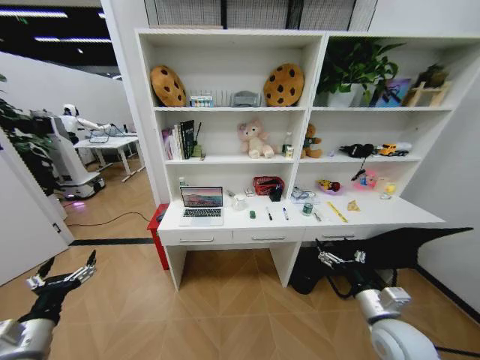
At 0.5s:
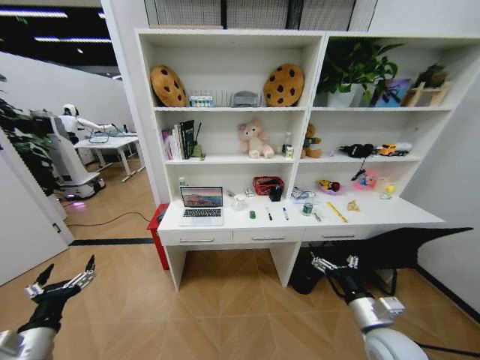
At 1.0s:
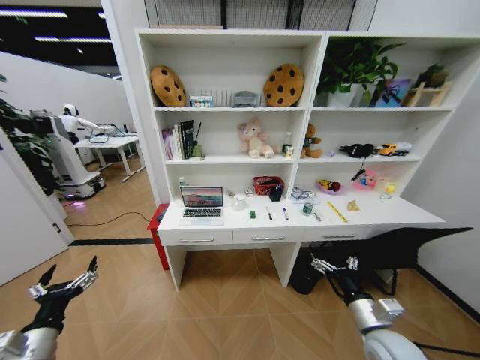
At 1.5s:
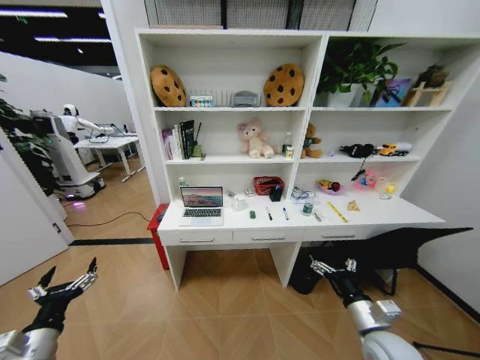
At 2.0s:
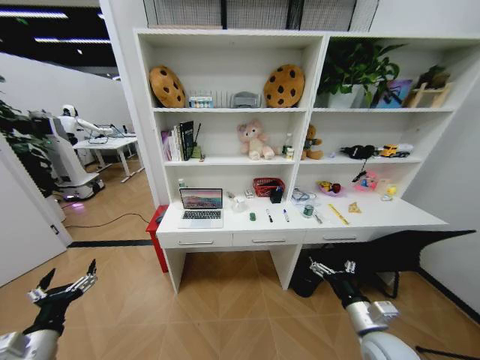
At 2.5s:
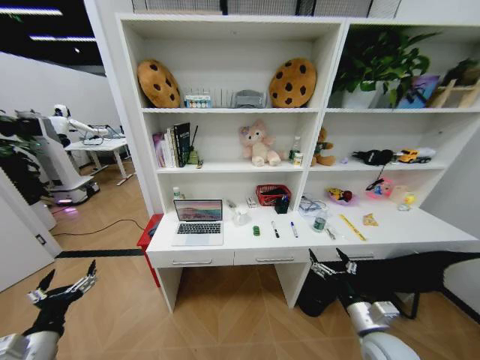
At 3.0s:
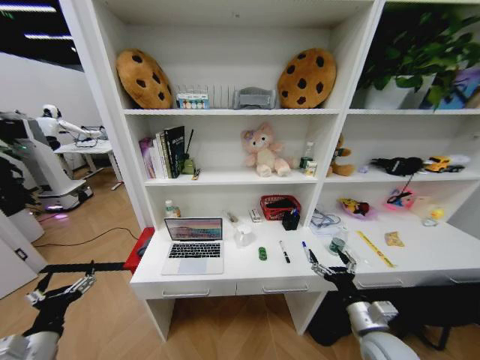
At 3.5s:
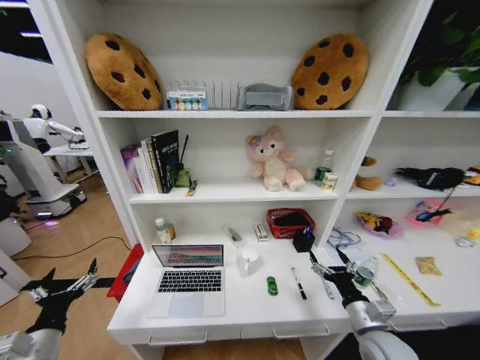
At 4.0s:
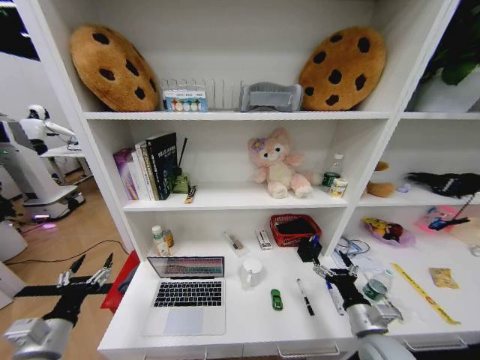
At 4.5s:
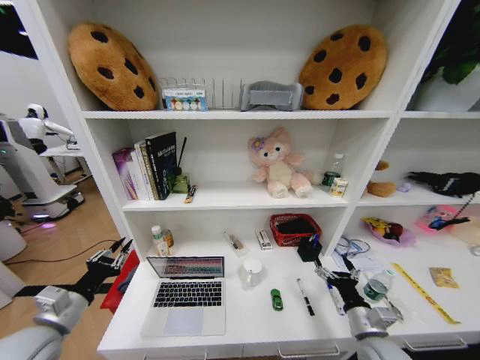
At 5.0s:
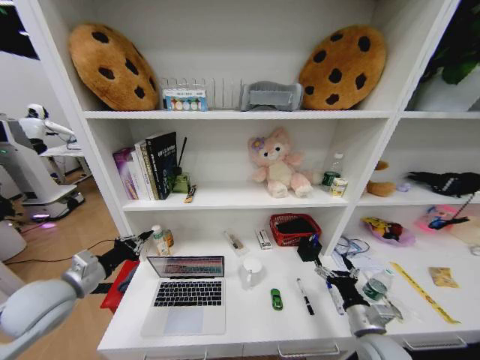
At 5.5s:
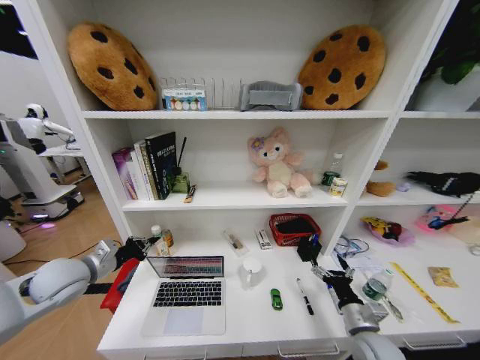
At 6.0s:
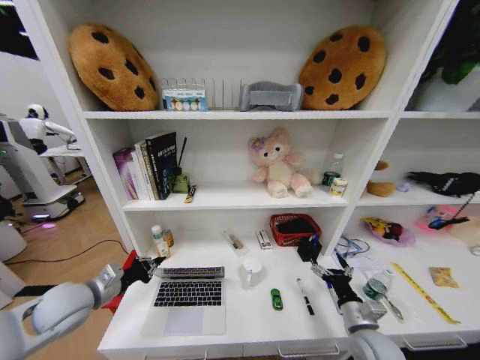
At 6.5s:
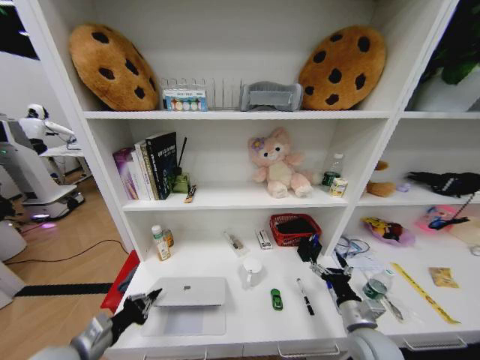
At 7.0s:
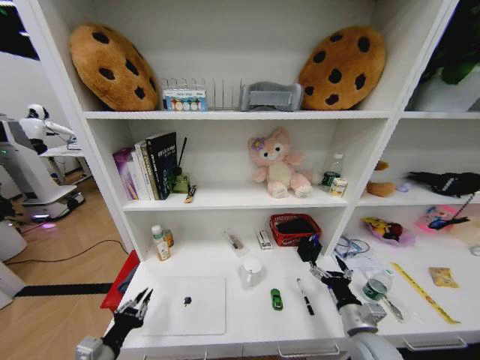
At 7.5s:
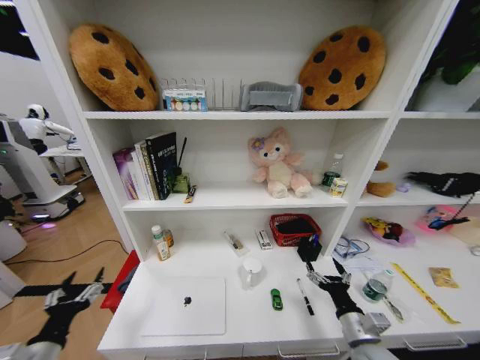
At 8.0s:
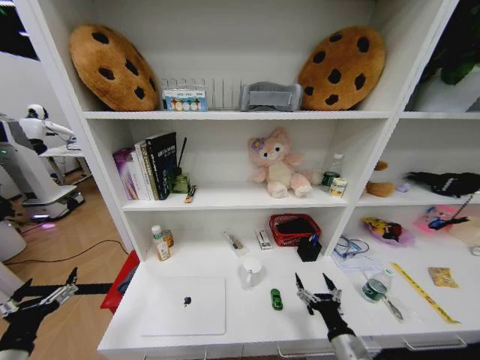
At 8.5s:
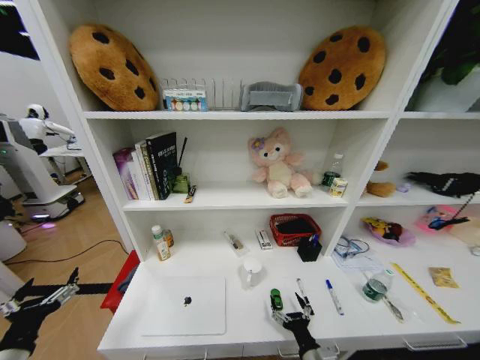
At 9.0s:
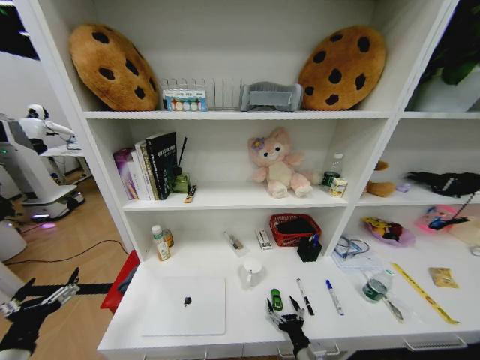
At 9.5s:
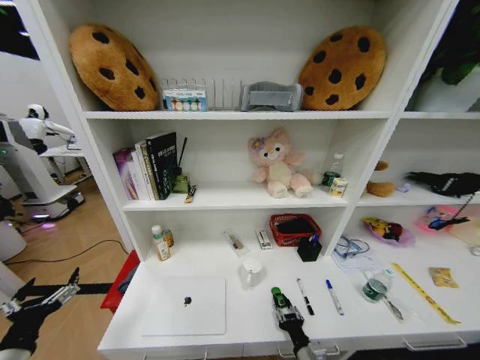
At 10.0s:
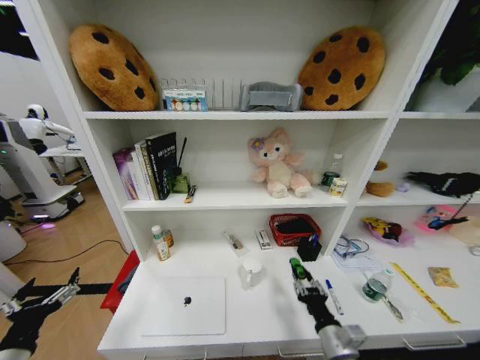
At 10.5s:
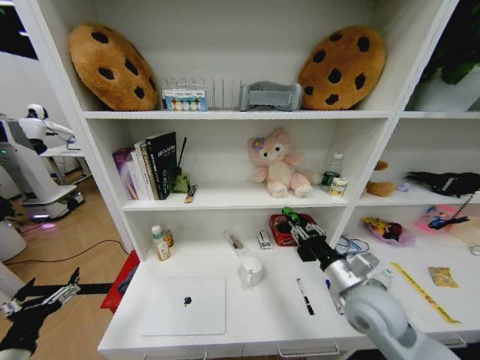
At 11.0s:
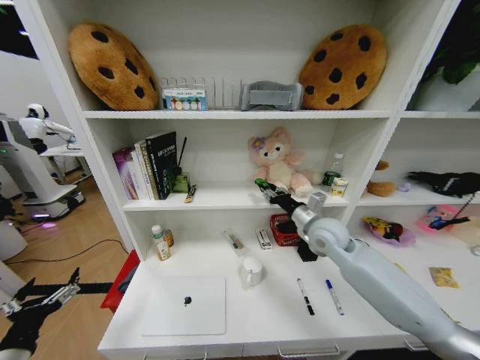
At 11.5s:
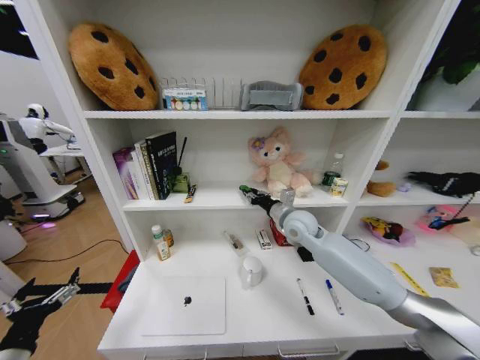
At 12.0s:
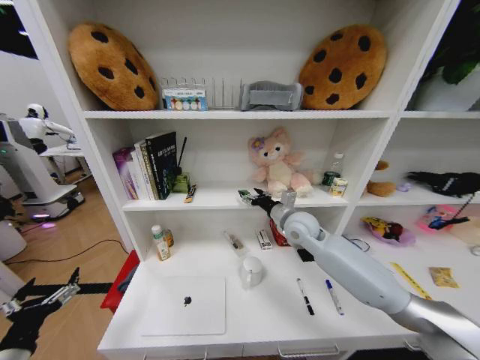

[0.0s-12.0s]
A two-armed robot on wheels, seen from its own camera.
Task of the whole recording: Organize the objects on the table.
4.0s to 6.0s: The left gripper heads forward, covering about 10 cm, and closes its fingers.
6.0s to 8.0s: The left gripper travels backward by about 15 cm, and opens up; the right gripper goes roughly 10 cm backward and to the left.
8.0s to 10.0s: The right gripper travels downward and back again, about 10 cm each way, and closes up.
10.0s to 12.0s: The right gripper moves forward and upward, roughly 35 cm, and opens.

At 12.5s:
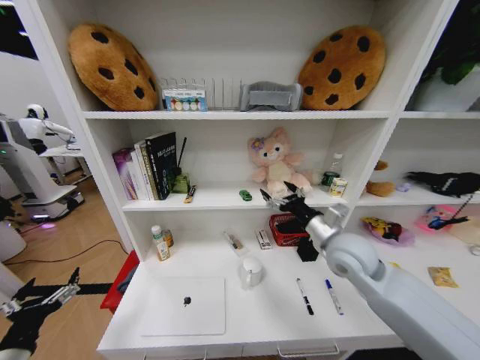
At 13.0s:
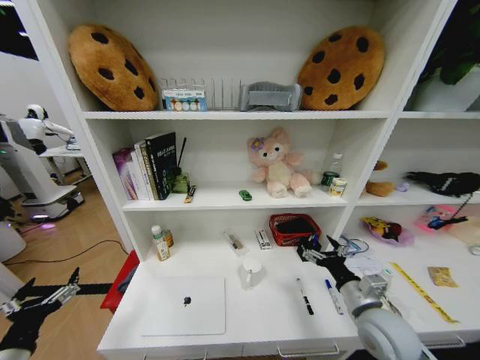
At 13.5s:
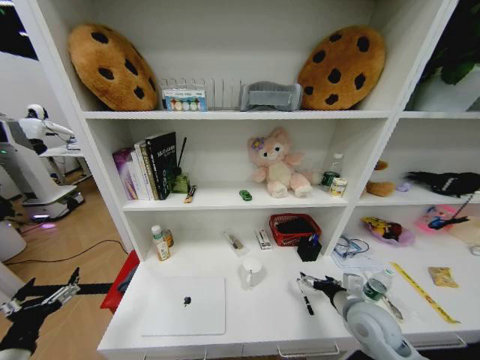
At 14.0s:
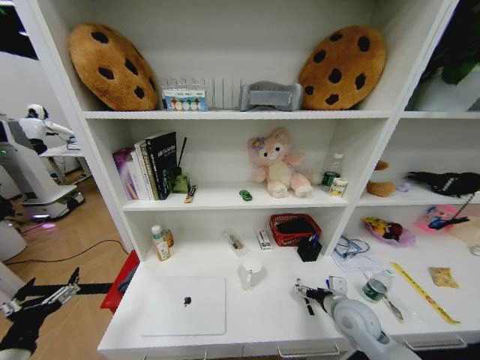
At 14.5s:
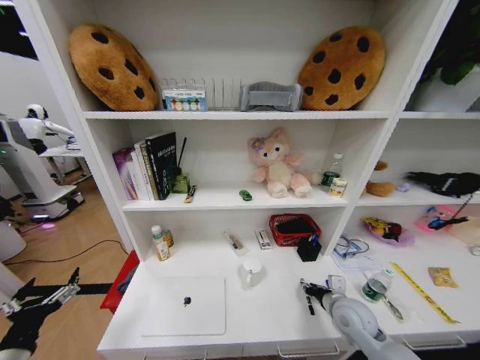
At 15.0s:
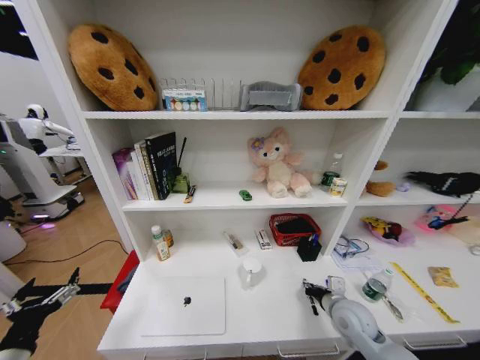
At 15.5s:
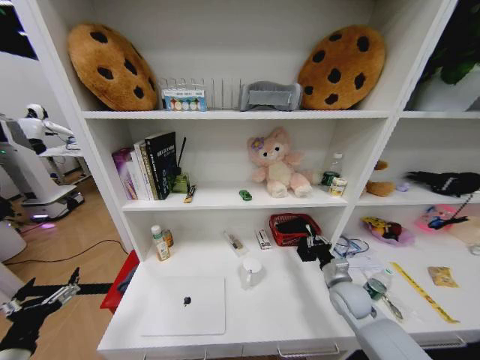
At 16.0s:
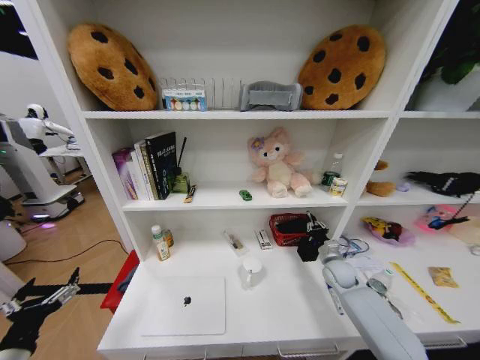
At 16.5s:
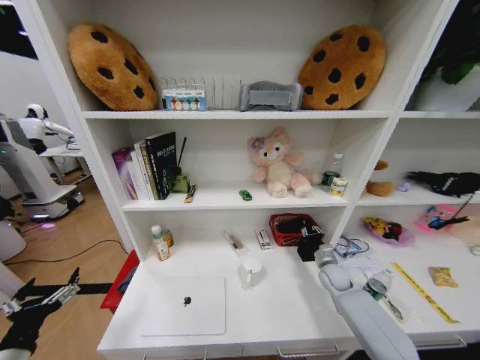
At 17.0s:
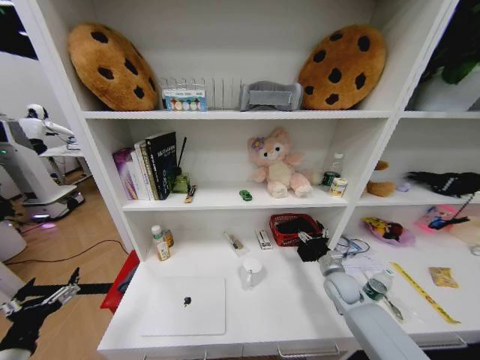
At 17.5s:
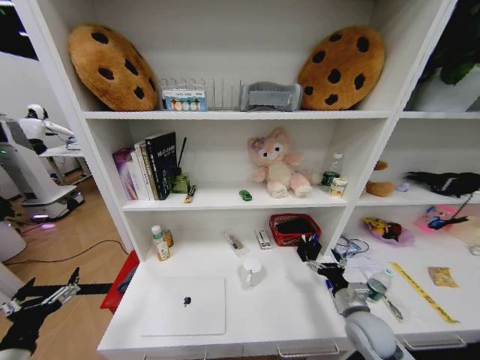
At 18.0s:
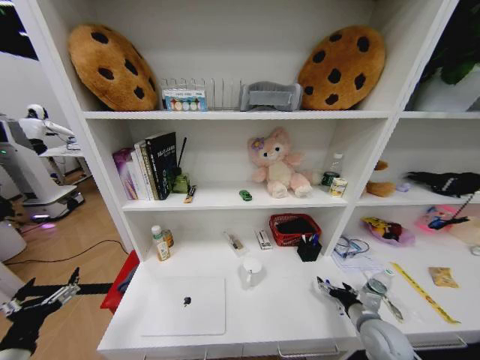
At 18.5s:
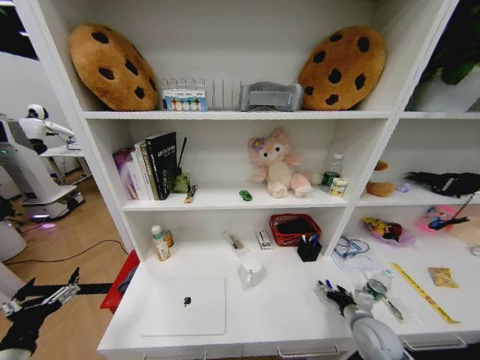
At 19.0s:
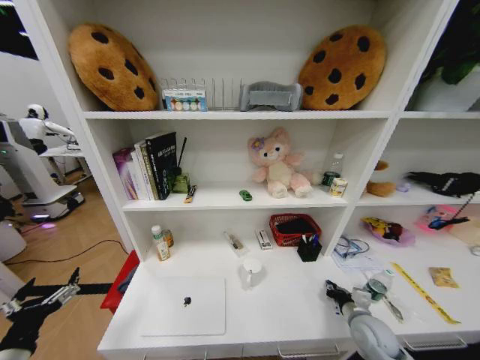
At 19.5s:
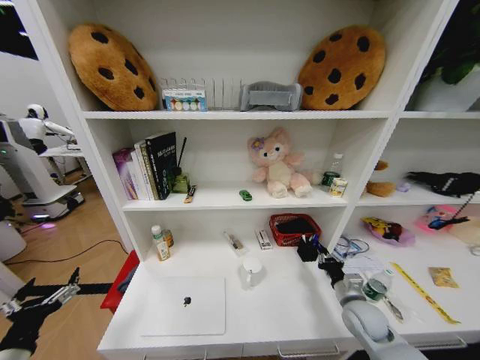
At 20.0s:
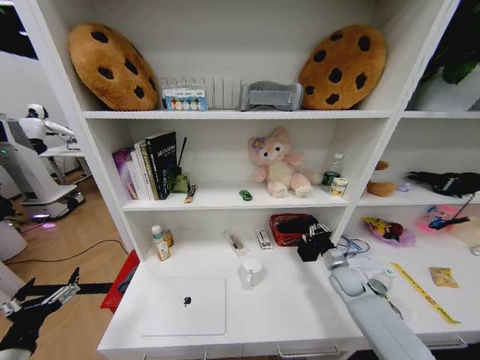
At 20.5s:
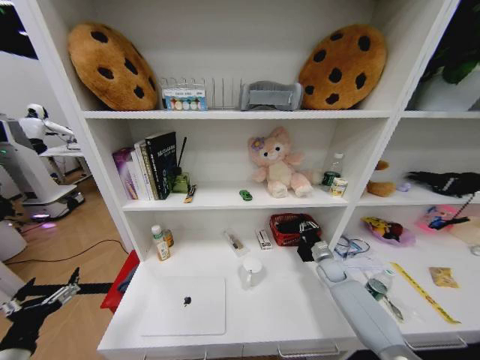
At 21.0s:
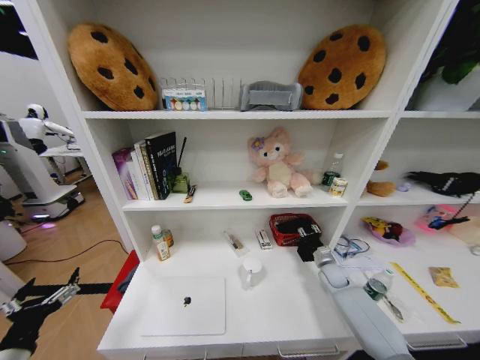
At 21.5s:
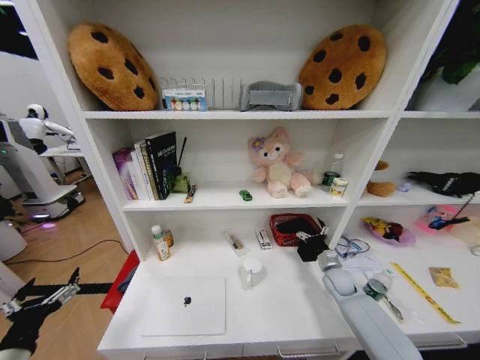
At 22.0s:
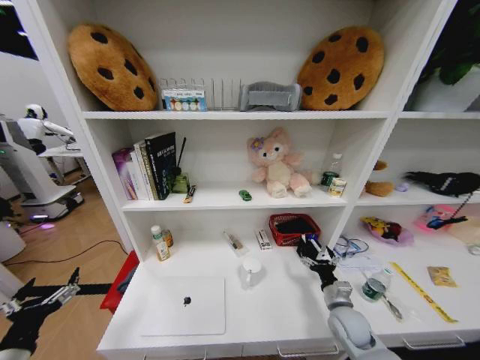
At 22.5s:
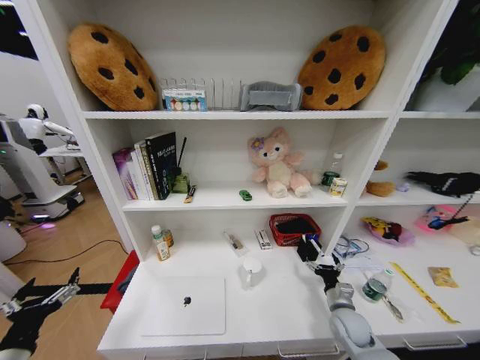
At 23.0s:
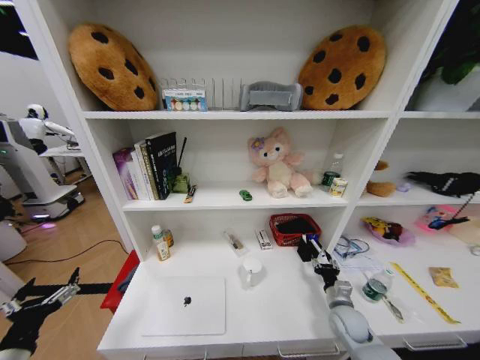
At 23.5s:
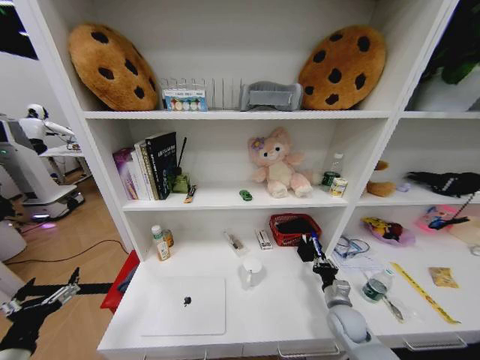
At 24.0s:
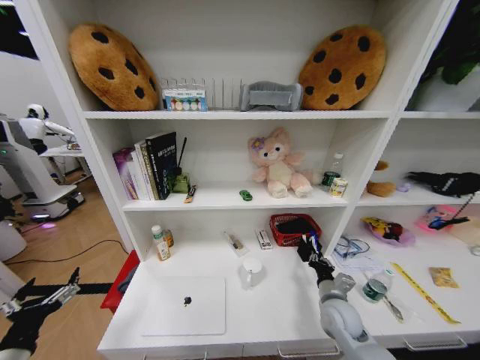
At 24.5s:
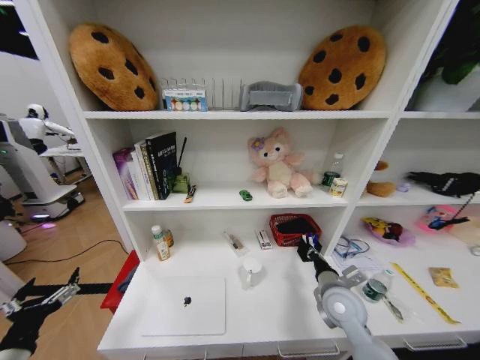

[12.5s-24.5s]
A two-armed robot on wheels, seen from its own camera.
Task of the whole recording: Organize the objects on the table.
12.5s to 14.5s: The right gripper shifts some 20 cm downward, and closes up.
14.5s to 16.5s: The right gripper shifts approximately 15 cm forward.
16.5s to 18.5s: The right gripper goes some 20 cm backward, and opens.
18.5s to 20.5s: The right gripper shifts some 20 cm forward, and closes up.
20.5s to 22.5s: The right gripper heads backward, covering some 15 cm, and opens up.
22.5s to 24.5s: The right gripper moves upward and to the left, some 15 cm, and closes its fingers.

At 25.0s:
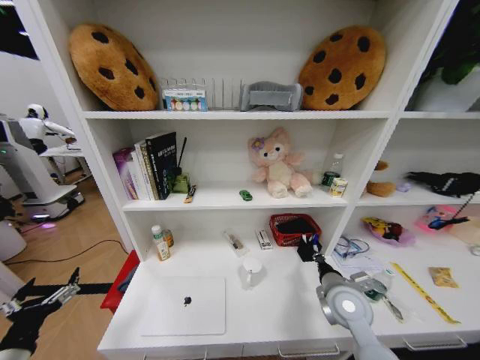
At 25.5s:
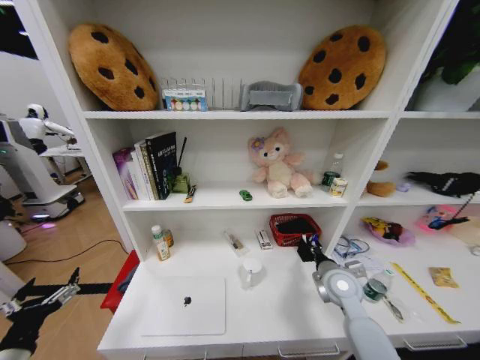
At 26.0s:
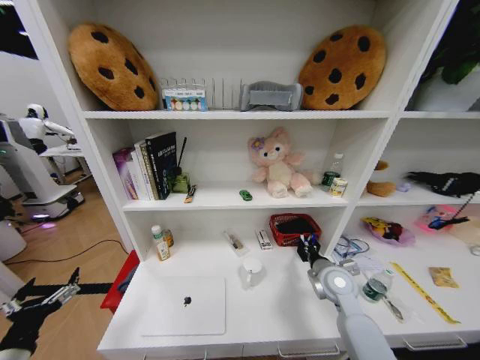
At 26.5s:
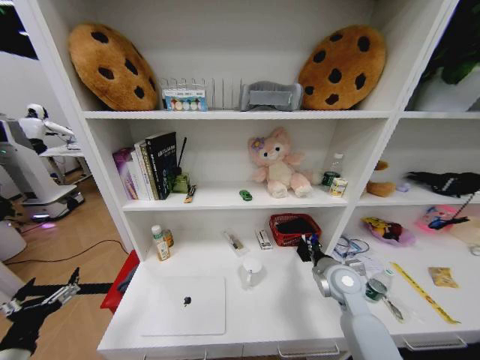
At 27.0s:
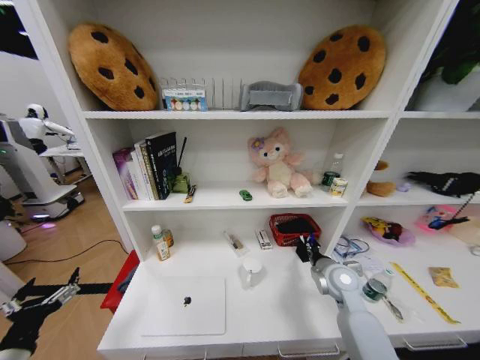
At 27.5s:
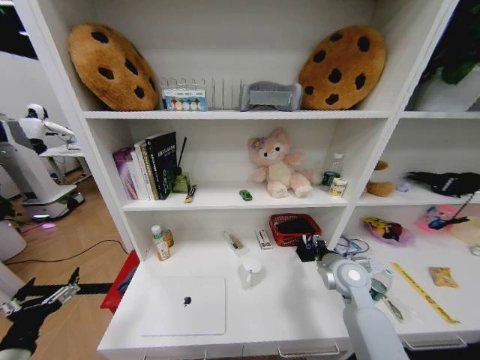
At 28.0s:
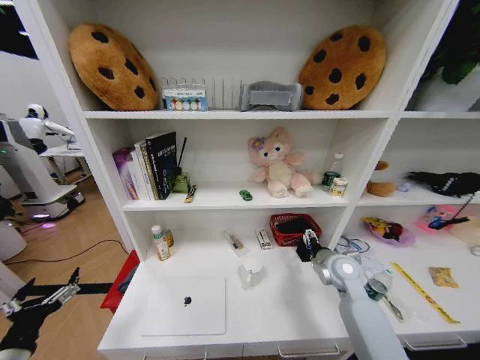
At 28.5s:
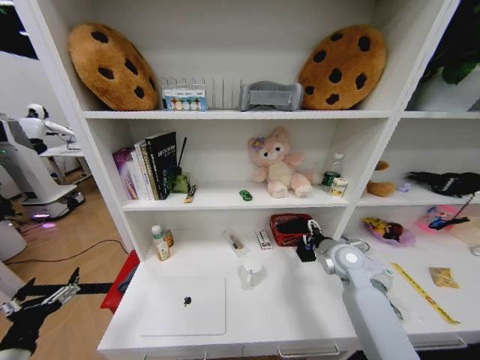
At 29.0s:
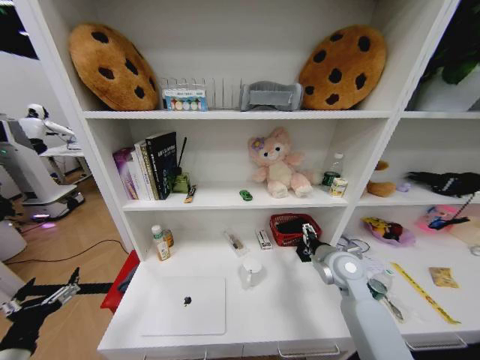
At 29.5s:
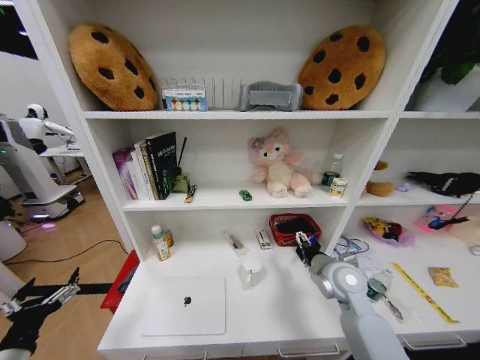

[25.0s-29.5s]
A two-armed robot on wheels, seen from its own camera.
Task of the whole recording: Organize the objects on the table.
25.0s to 27.0s: The right gripper heads forward, covering roughly 5 cm.
27.0s to 29.5s: The right gripper opens.
